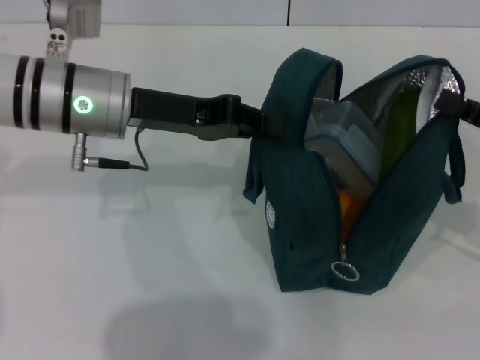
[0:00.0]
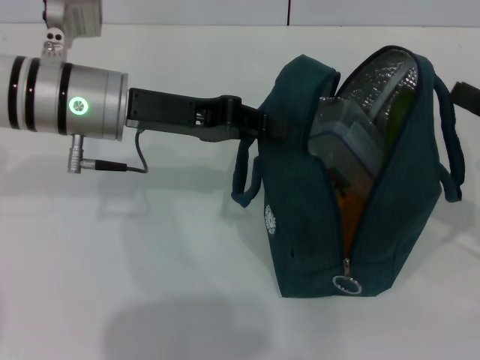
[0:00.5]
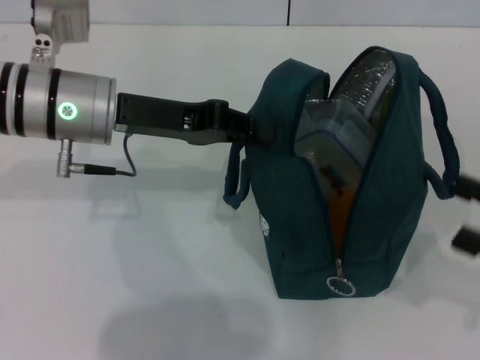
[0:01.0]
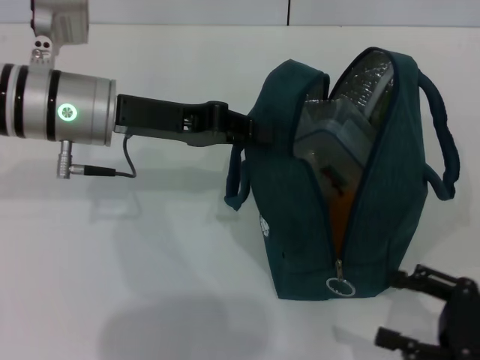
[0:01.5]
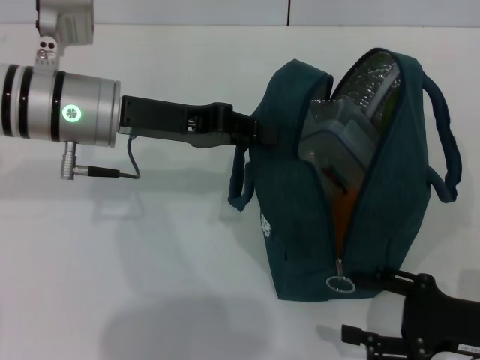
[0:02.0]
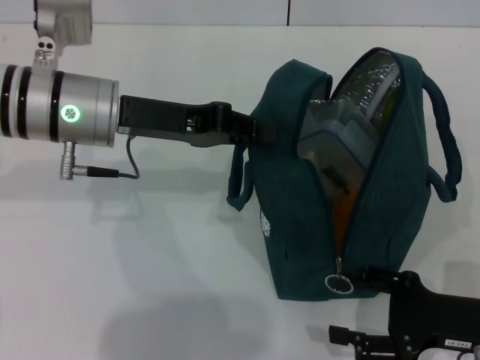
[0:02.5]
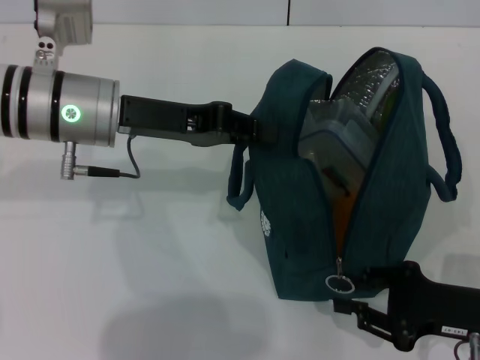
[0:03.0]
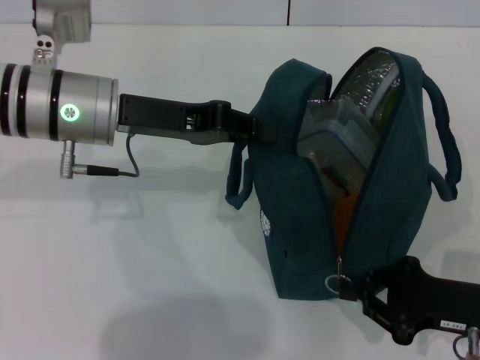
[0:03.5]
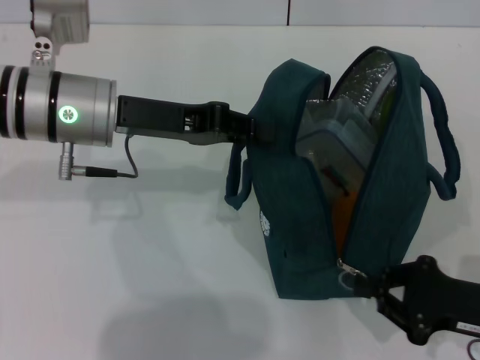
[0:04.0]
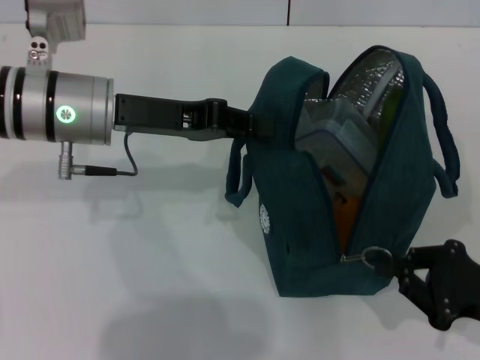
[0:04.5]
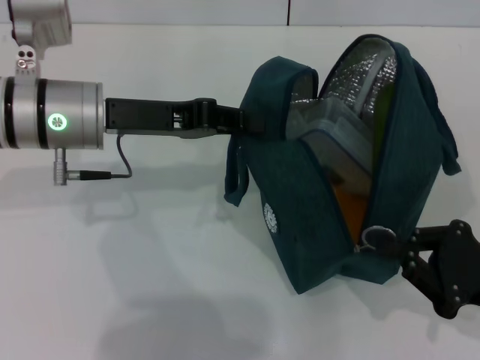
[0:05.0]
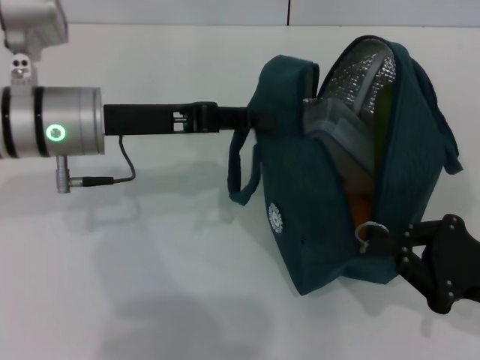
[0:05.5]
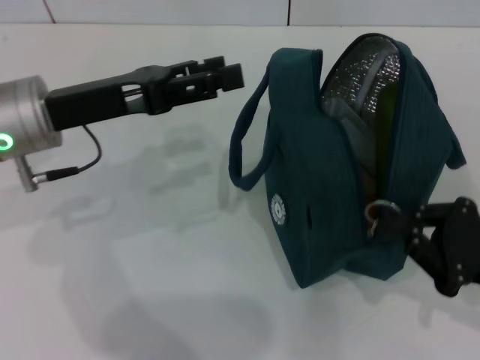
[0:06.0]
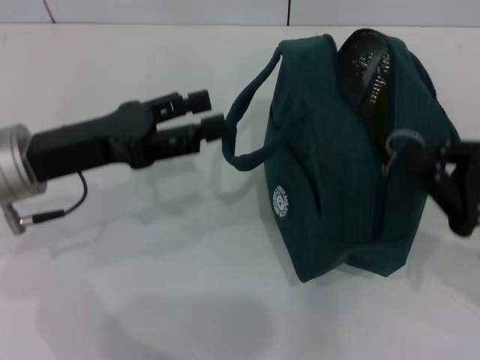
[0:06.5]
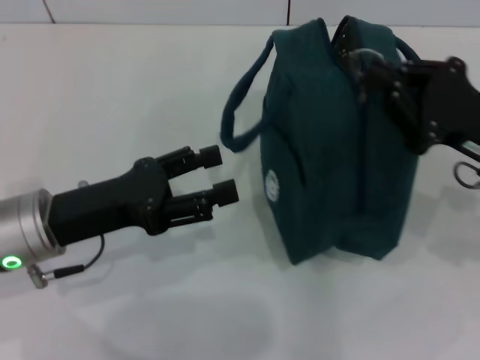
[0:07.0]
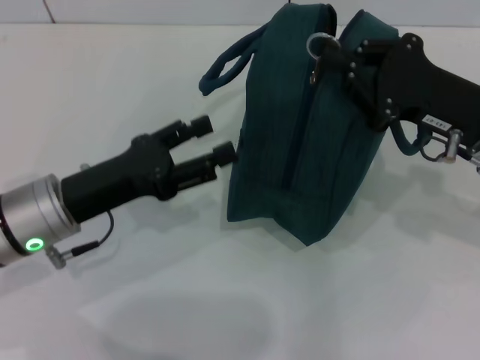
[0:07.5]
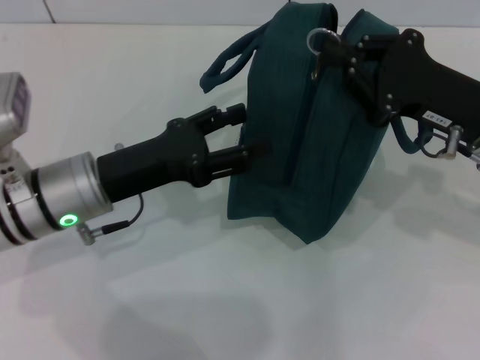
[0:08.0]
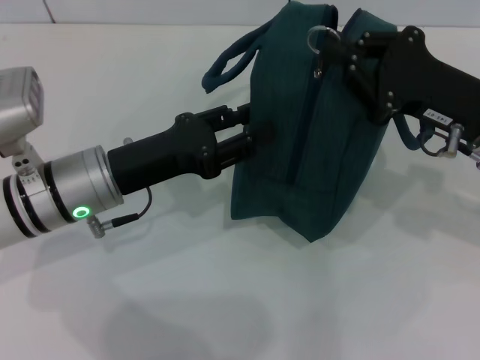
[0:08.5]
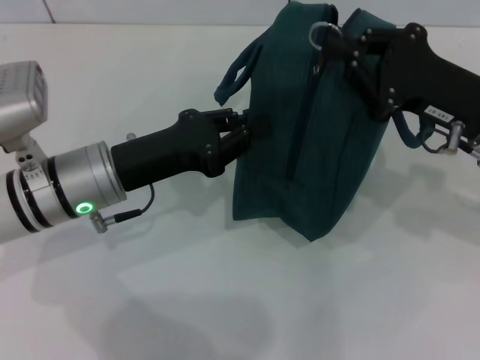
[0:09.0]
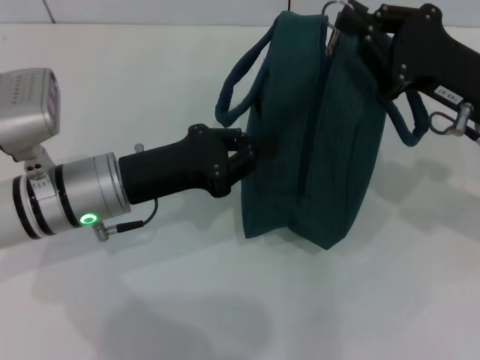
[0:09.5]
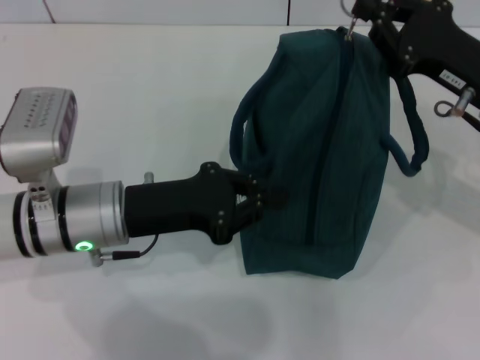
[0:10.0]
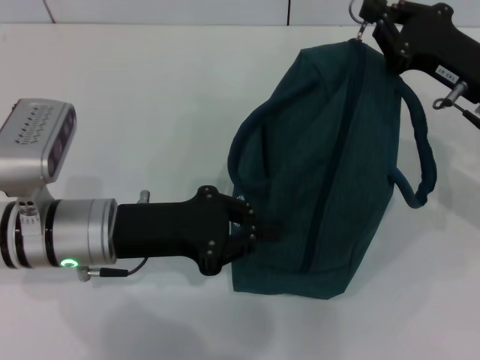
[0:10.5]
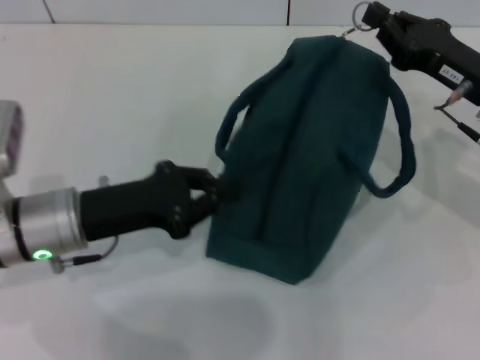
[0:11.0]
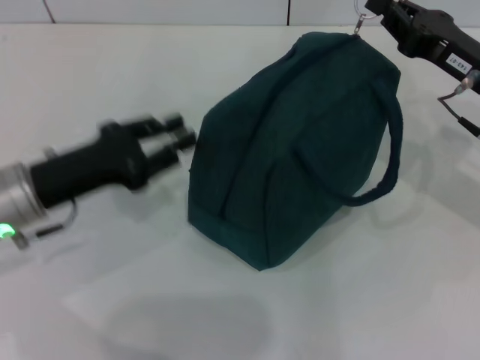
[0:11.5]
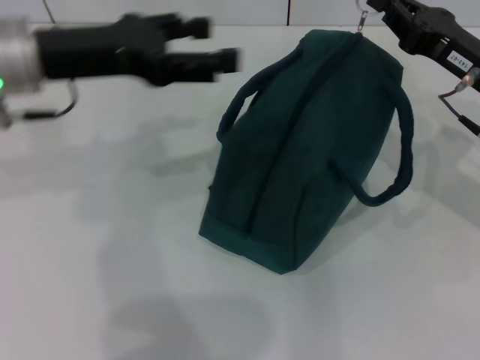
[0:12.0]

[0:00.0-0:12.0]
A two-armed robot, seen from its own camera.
Step, 0:01.0 to 0:05.5: Hold the lunch bag with your left hand.
0:00.0 to 0:02.0: The right gripper heads downward and backward, covering some 15 cm, and opens.
0:02.0 to 0:04.0: The right gripper closes.
0:04.0 to 0:06.0: The left gripper moves approximately 5 cm, and opens its fingers.
0:06.0 to 0:08.0: The right gripper is displaced forward, upward and to the left by approximately 15 cm. Meanwhile the left gripper moves downward, approximately 5 cm.
0:08.0 to 0:10.0: The left gripper closes up.
0:10.0 to 0:12.0: The left gripper is displaced upward and forward by about 15 cm, and opens.

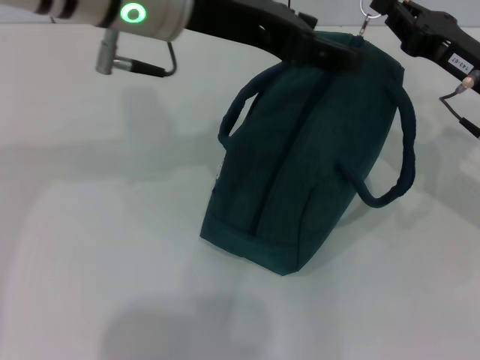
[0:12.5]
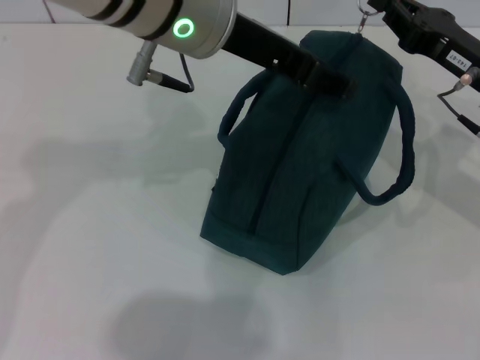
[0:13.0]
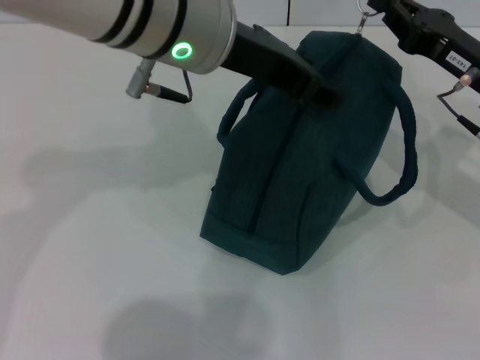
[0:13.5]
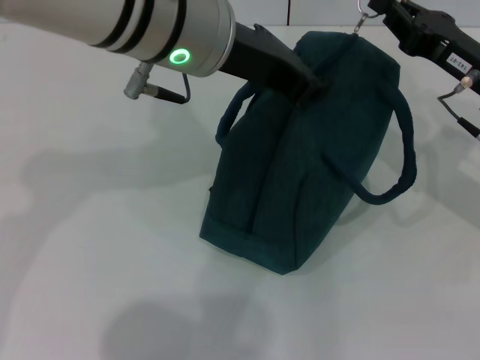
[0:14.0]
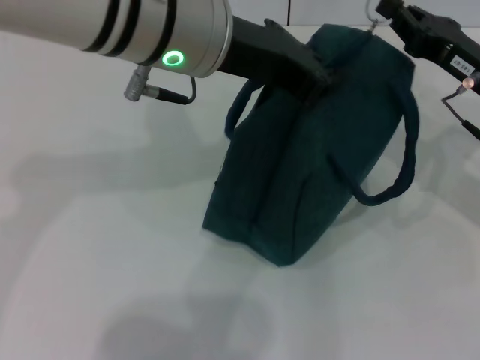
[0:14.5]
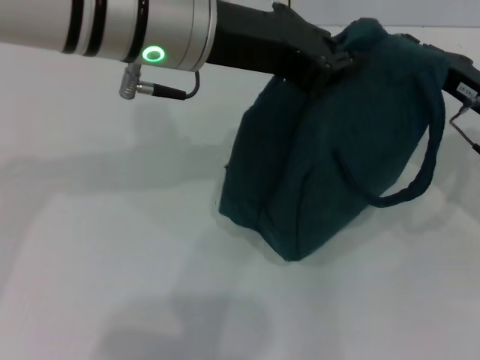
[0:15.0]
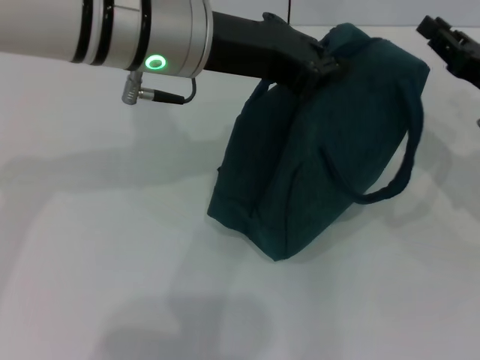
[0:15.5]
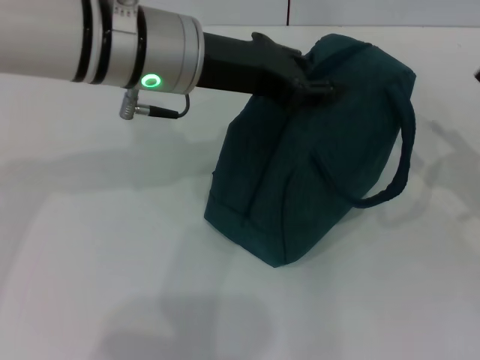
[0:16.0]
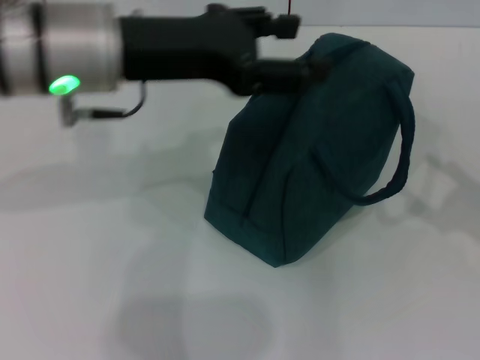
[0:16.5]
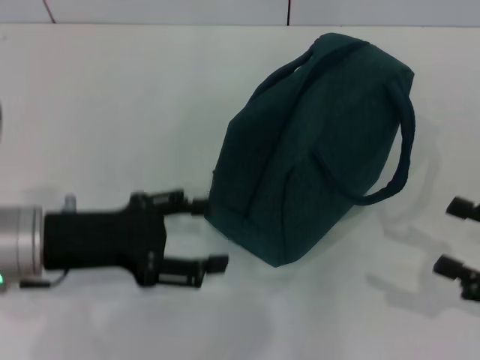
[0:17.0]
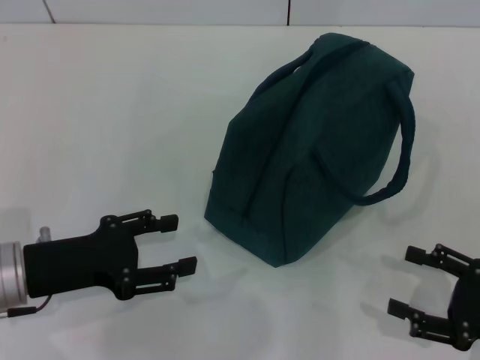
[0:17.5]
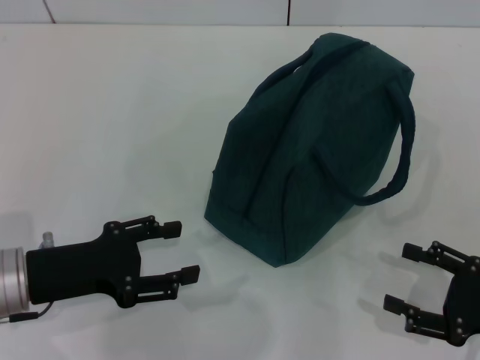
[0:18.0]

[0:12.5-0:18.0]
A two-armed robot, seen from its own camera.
Step, 0:12.5 to 0:15.0: Zip up the lunch bag with your right hand.
Step, 0:15.5 to 0:16.0: Hold the lunch bag with your left hand.
0:12.5 to 0:14.5: The left gripper closes its fingers.
0:14.5 to 0:16.0: The right gripper is displaced backward and to the right by approximately 10 cm, and opens.
0:16.0 to 0:18.0: The right gripper heads backward and downward, covering about 10 cm. The left gripper is displaced downward, to the left and backward by approximately 25 cm, and opens.
